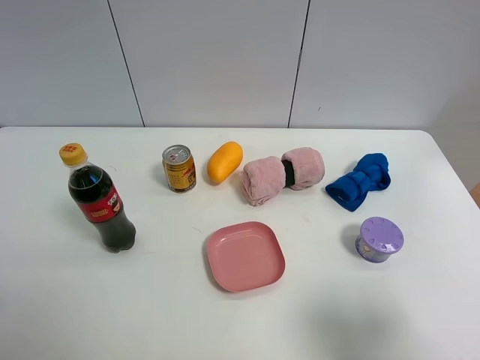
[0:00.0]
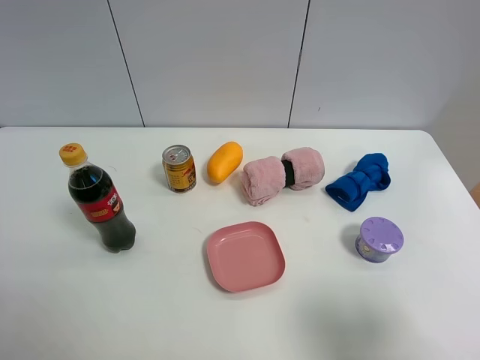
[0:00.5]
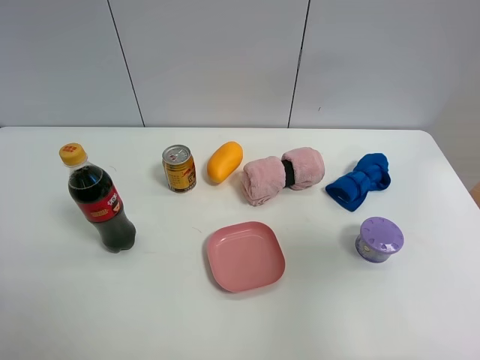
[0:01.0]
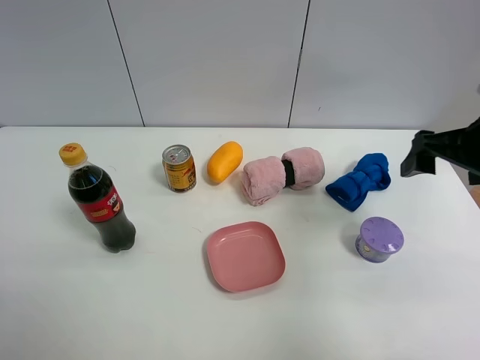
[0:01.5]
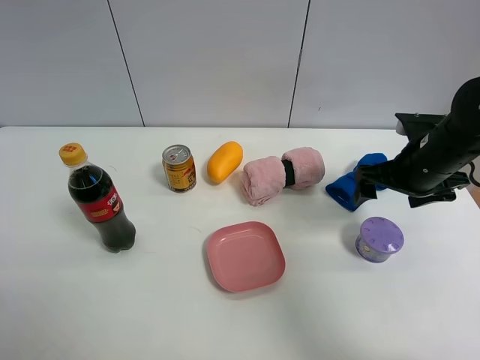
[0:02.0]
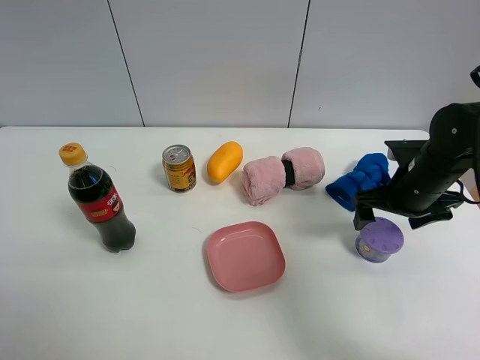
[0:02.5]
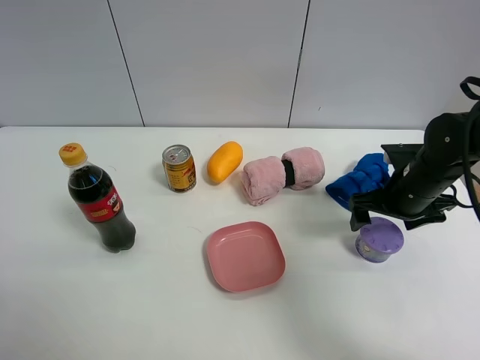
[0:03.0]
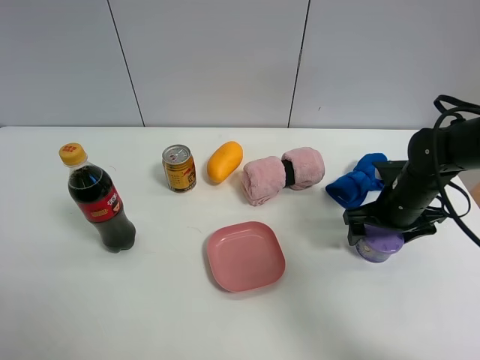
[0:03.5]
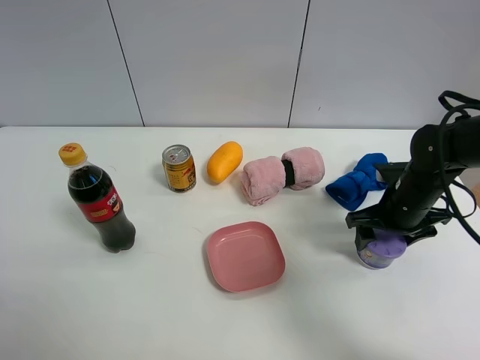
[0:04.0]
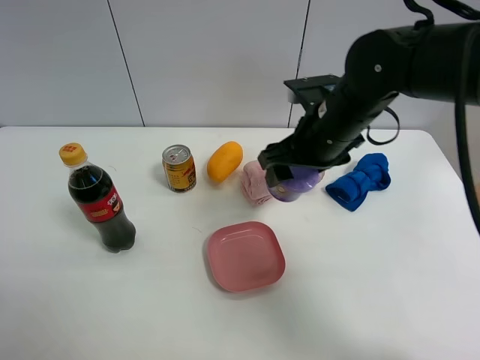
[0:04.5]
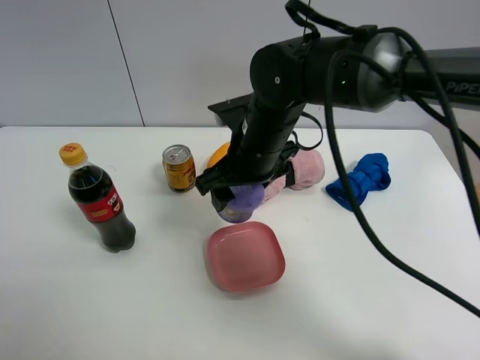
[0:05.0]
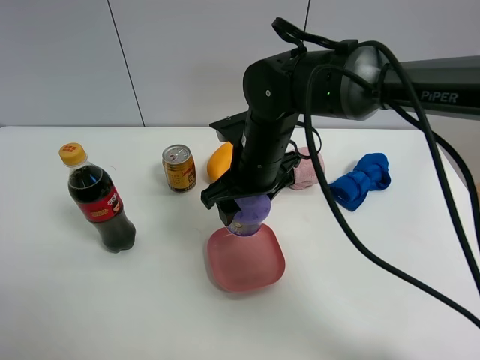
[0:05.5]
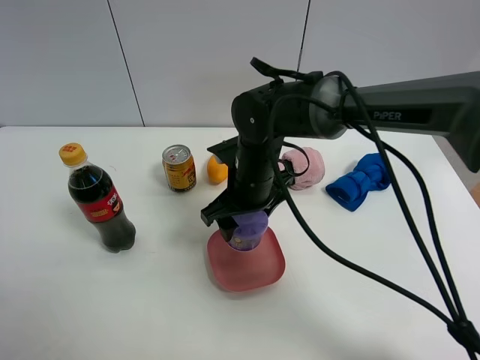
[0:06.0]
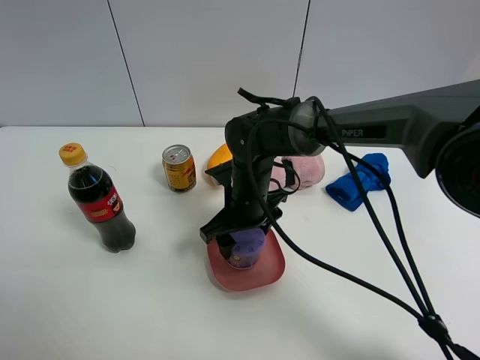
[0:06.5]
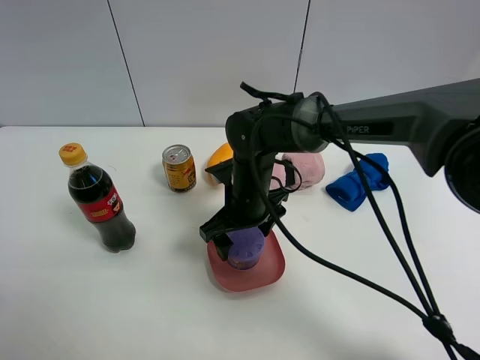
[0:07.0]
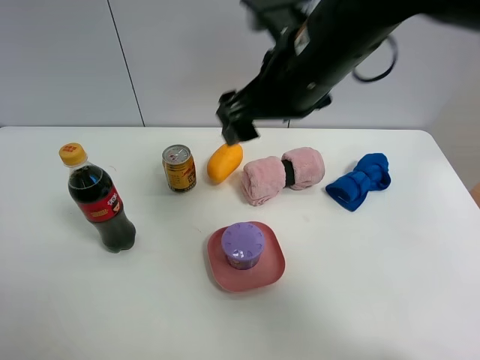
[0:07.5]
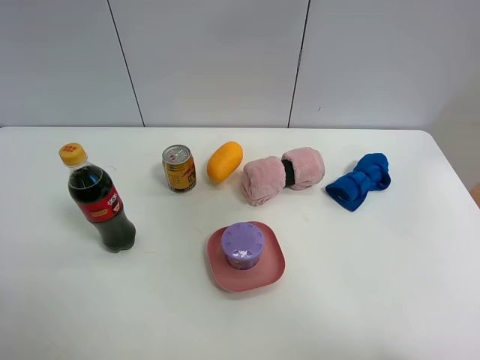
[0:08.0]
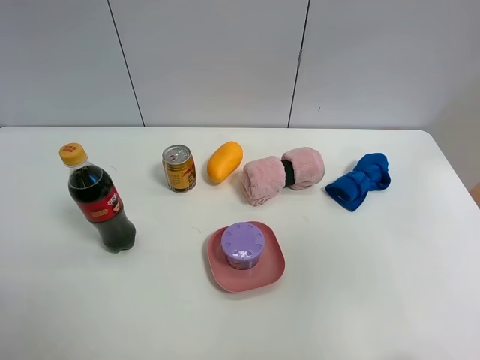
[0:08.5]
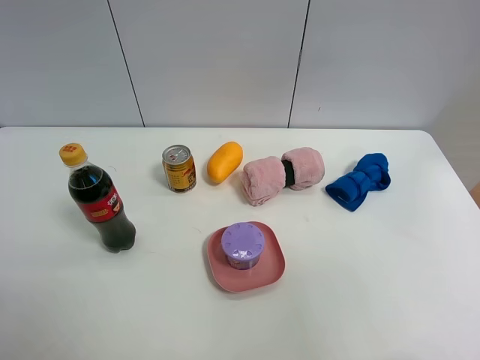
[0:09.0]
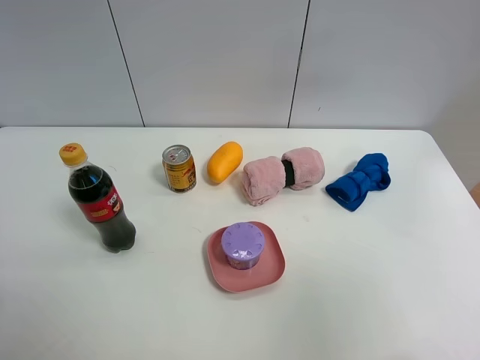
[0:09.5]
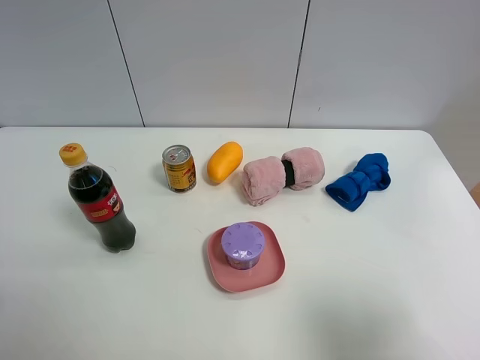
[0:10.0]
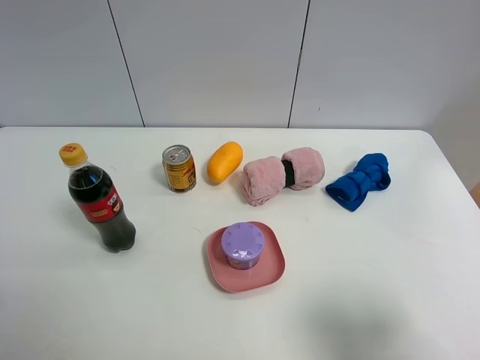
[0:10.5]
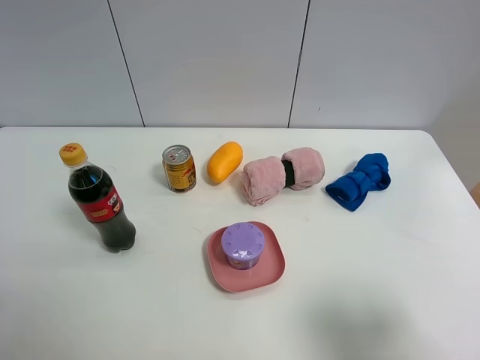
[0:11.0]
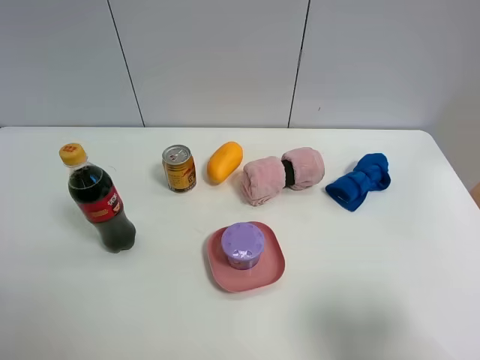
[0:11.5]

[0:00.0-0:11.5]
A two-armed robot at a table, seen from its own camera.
Task of the whole recording: the gripper move the object.
Step, 0:00.0 to 0:03.5: Grasp the Incense box with the right gripper.
Step, 0:04.0 to 0:07.0: Place the Incense box into the pink plate with the right gripper.
0:00.0 to 0:02.0: The right gripper moves forward, some 30 cm, and closes, then opens again.
0:02.0 to 0:04.0: The right gripper is displaced downward by roughly 5 cm, and closes.
0:04.0 to 0:06.0: The right gripper heads to the left, covering some 25 cm.
0:06.0 to 0:07.5: The right gripper travels upward by approximately 20 cm, and opens.
0:07.5 to 0:09.5: The right gripper moves backward and to the right, some 40 cm.
0:09.5 to 0:11.5: The right gripper heads downward, covering about 15 cm.

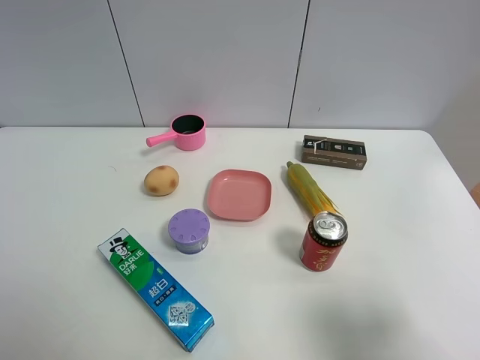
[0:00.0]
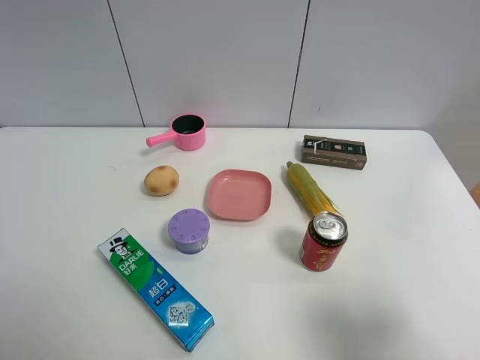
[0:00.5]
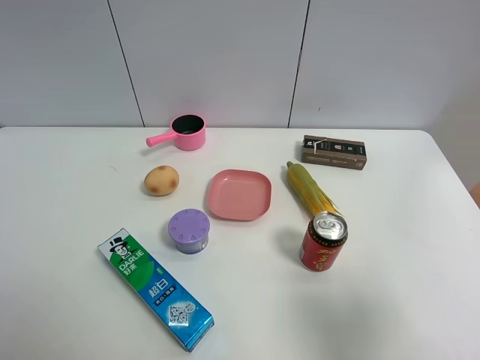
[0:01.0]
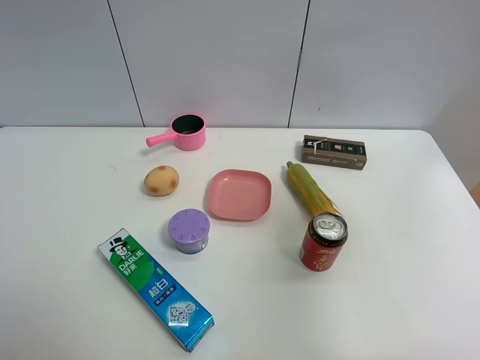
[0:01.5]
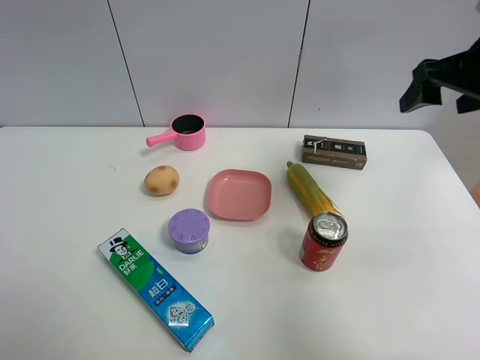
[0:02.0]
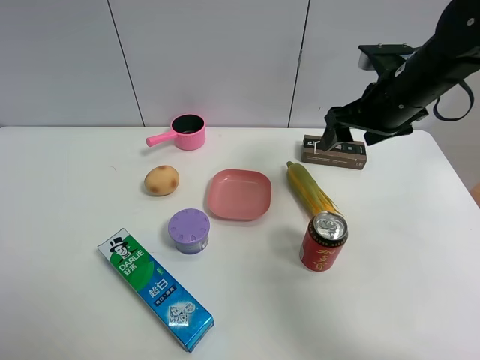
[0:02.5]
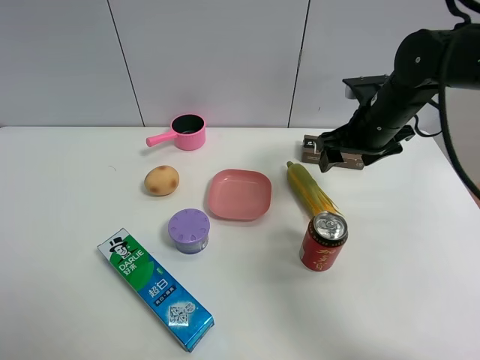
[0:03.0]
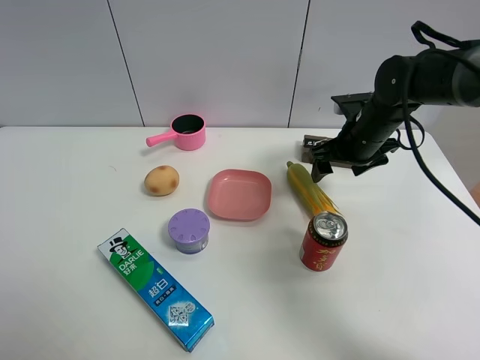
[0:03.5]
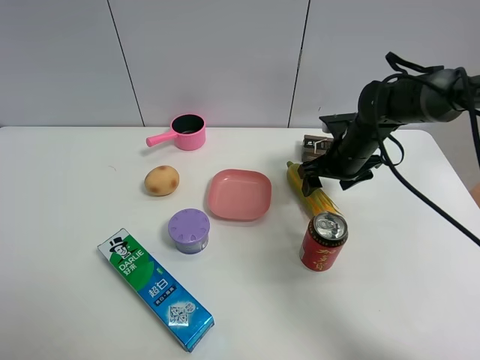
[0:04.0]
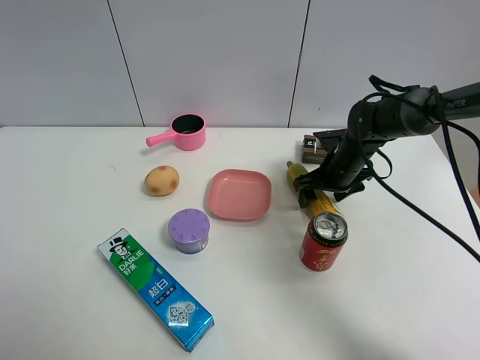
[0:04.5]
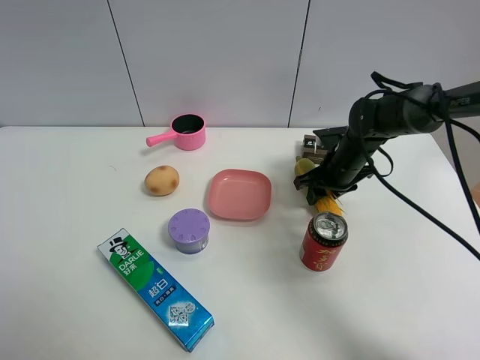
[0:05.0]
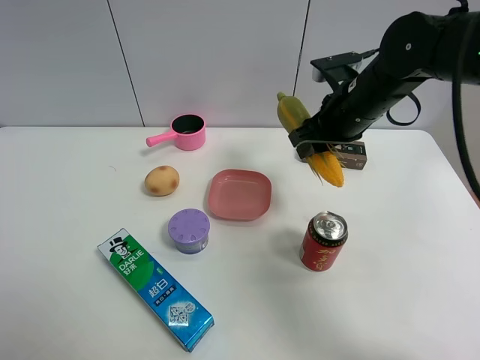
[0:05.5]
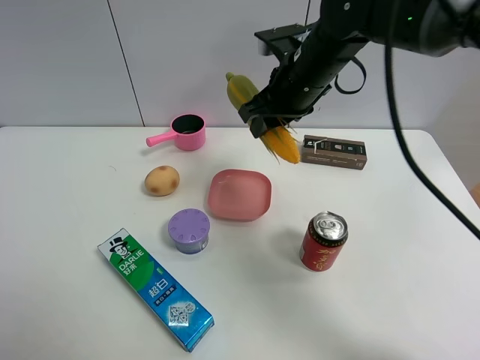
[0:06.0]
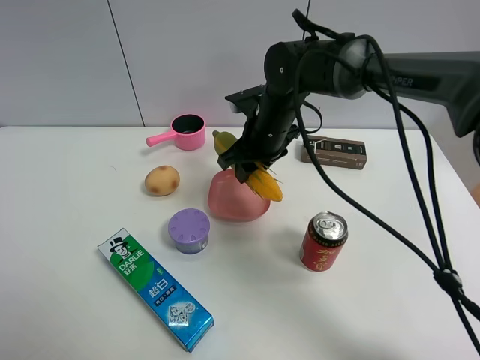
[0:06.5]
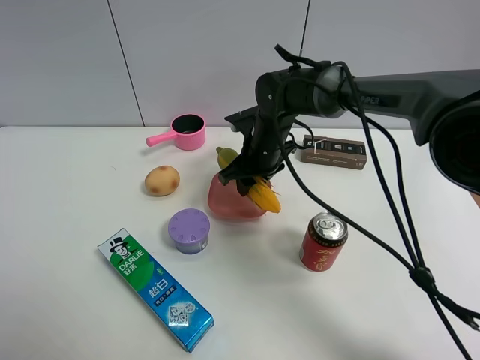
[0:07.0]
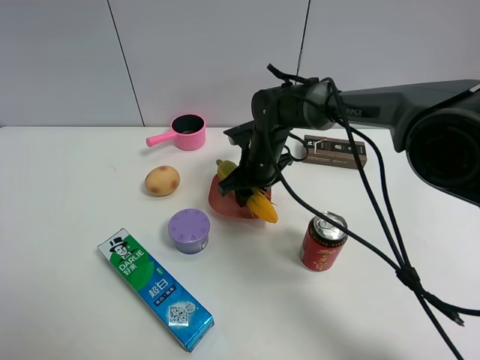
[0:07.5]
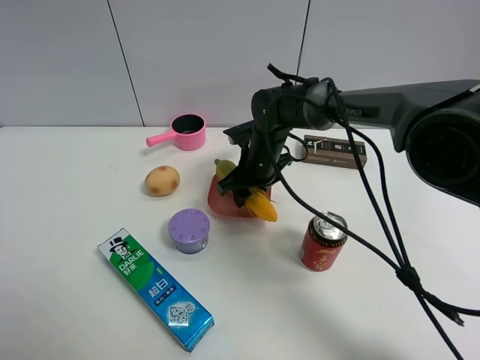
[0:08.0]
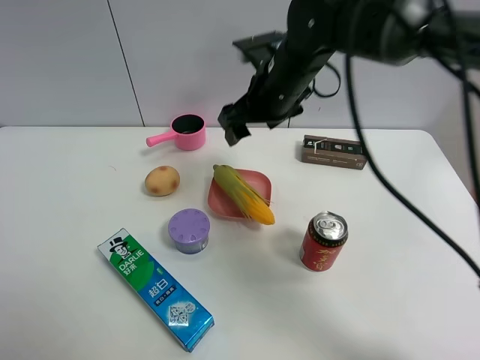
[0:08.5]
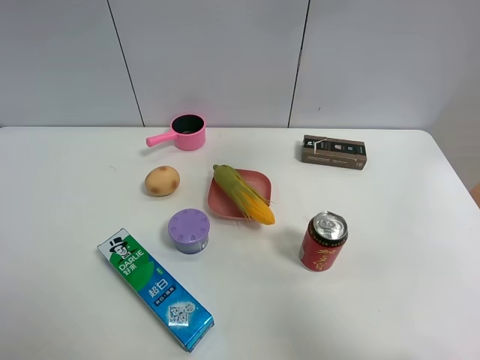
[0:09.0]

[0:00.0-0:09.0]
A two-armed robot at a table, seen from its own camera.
Task of the whole recording: the gripper move the object.
Step, 0:00.0 to 0:04.5: Grasp the corn with the right gripper.
Step, 0:05.0 to 0:08.0: Place the corn into the pink plate with the right gripper.
0:00.0 to 0:02.0: The right gripper travels forward by about 30 cm.
0:02.0 to 0:04.5: The right gripper is displaced downward by some 25 cm.
0:04.5 to 0:07.0: The right gripper heads to the left, covering approximately 15 cm, moves roughly 15 cm upward and comes back, and closes.
0:07.0 to 0:09.0: The right gripper goes some 35 cm upward and to the right, and opens up.

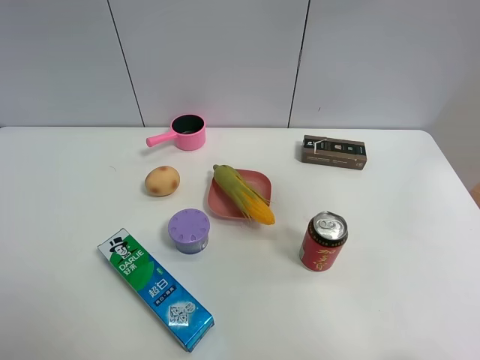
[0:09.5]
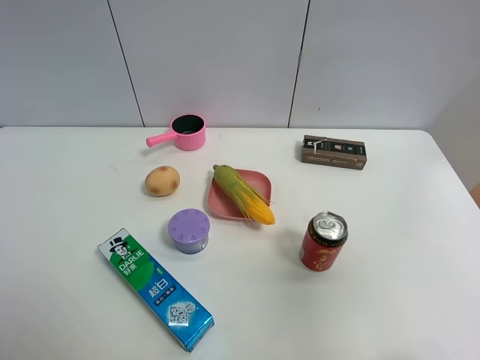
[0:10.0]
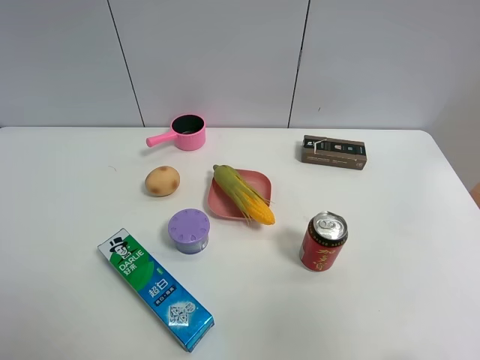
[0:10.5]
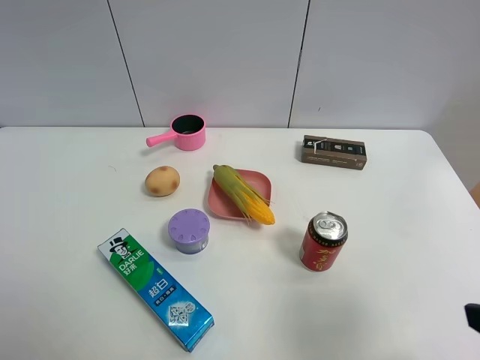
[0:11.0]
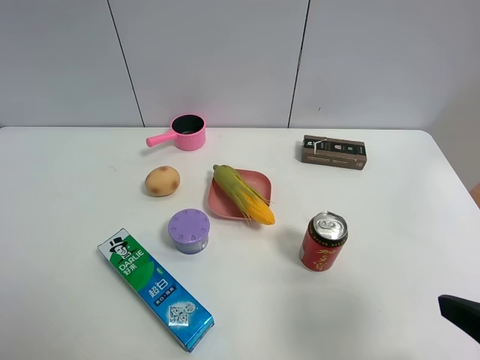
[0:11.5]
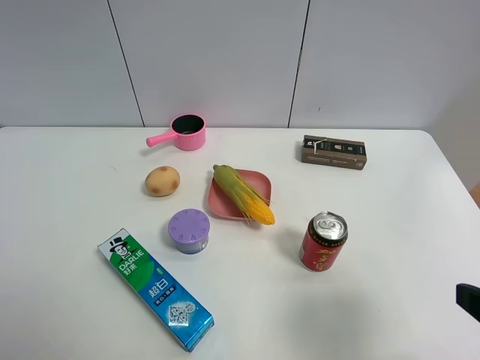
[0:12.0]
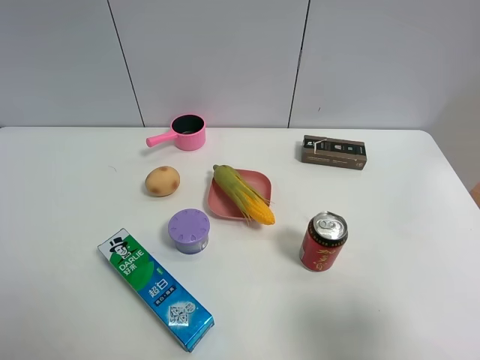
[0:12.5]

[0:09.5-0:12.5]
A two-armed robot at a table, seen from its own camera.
Task of the whole recording: the gripper move the object.
0:09.5 to 0:11.0: The right gripper moves downward, roughly 25 cm.

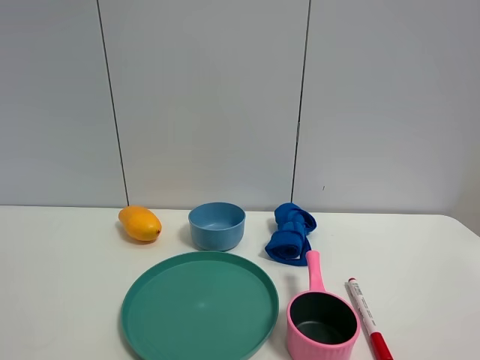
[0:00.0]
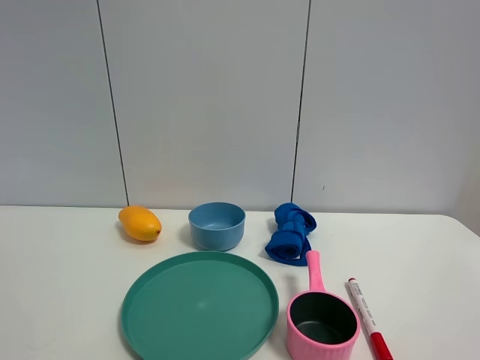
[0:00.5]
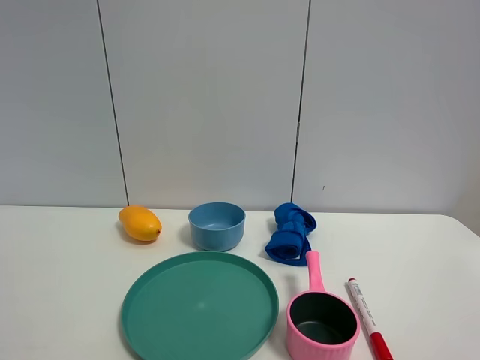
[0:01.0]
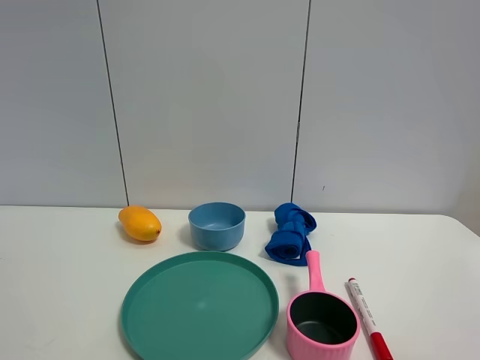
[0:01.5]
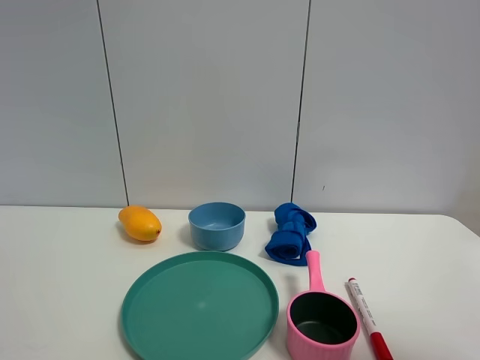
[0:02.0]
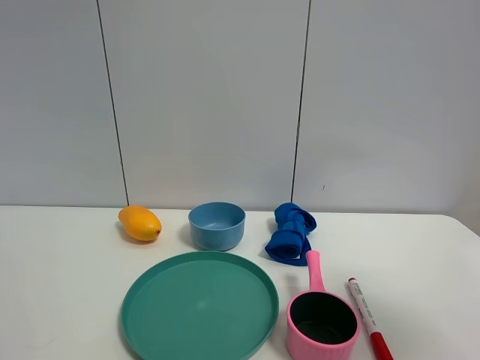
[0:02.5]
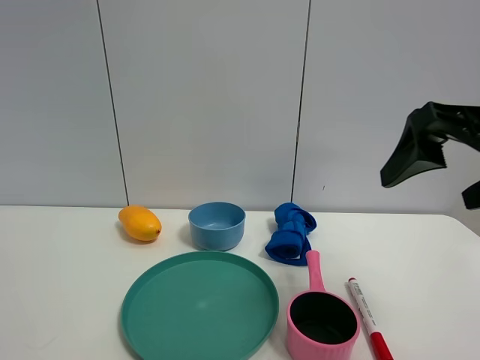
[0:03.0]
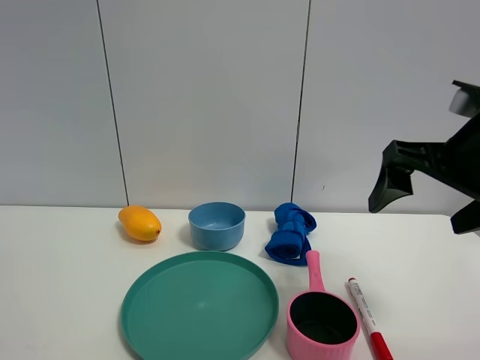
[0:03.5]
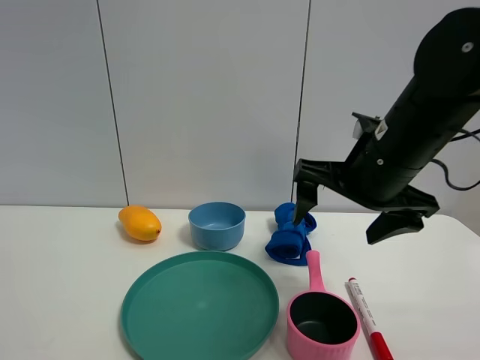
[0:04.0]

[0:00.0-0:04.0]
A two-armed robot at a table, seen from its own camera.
Task of the whole recording: the gripper move the object.
0:00.0 to 0:02.0: The right gripper goes approximately 10 cm forward and upward.
0:02.0 to 0:04.0: The right gripper moves forward, to the left and downward, some 30 cm.
